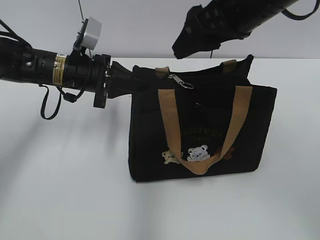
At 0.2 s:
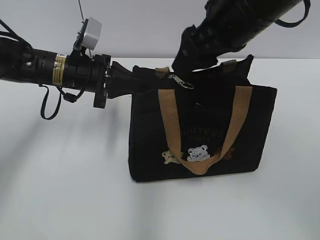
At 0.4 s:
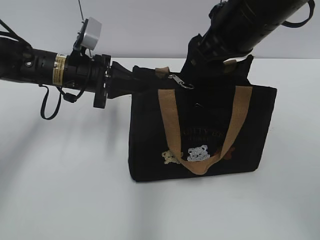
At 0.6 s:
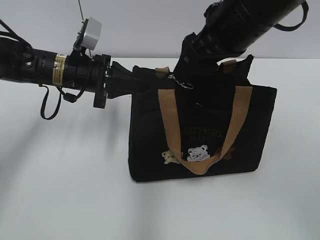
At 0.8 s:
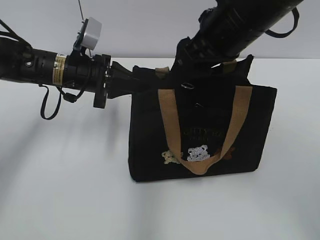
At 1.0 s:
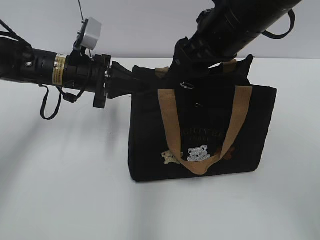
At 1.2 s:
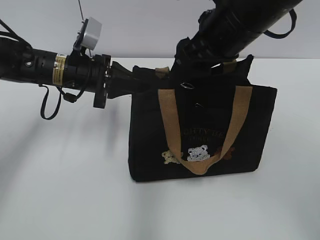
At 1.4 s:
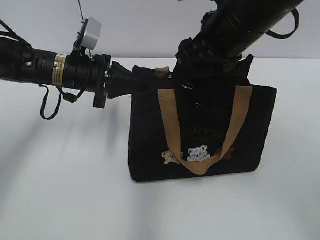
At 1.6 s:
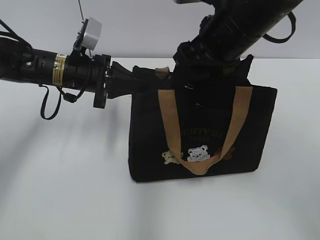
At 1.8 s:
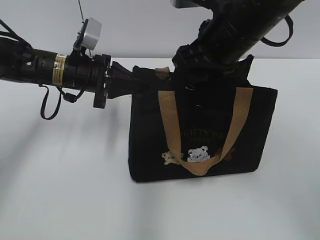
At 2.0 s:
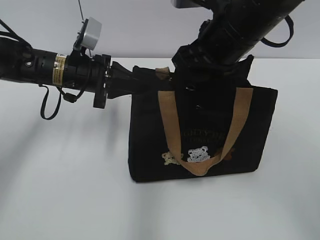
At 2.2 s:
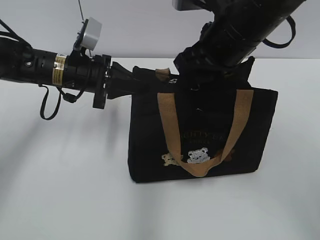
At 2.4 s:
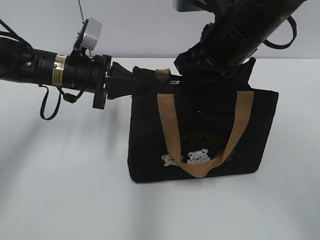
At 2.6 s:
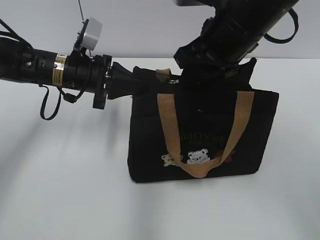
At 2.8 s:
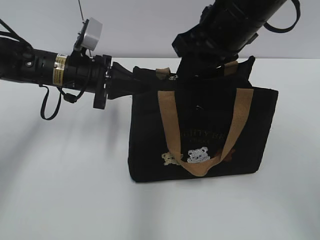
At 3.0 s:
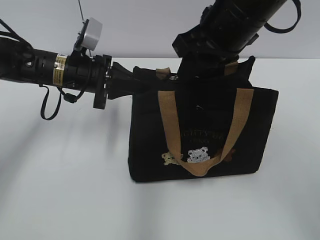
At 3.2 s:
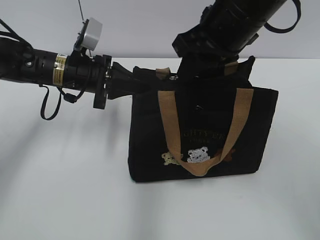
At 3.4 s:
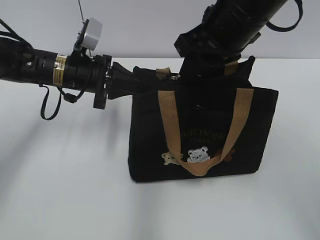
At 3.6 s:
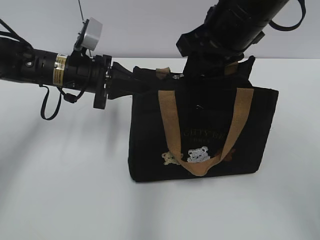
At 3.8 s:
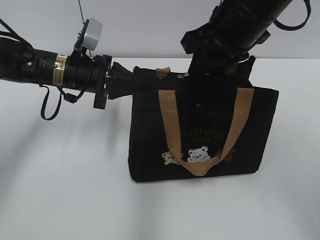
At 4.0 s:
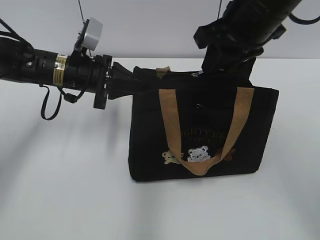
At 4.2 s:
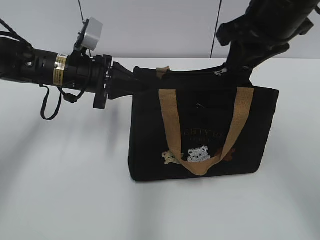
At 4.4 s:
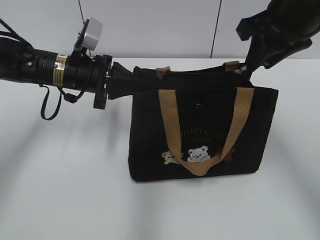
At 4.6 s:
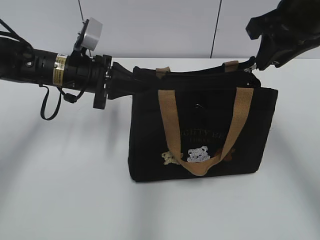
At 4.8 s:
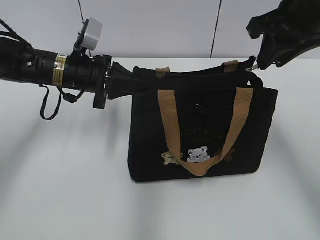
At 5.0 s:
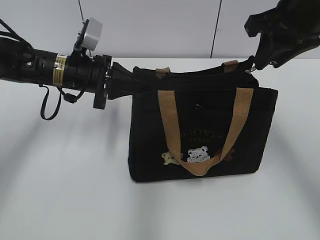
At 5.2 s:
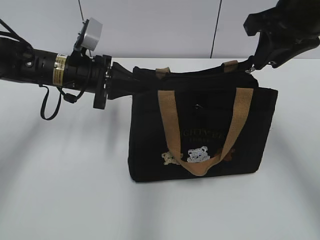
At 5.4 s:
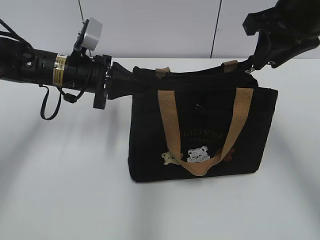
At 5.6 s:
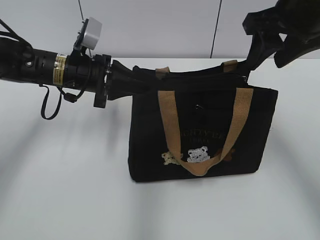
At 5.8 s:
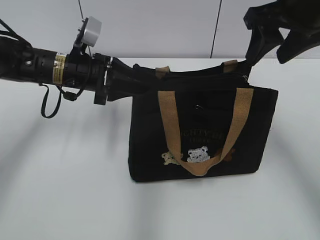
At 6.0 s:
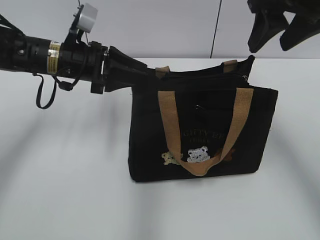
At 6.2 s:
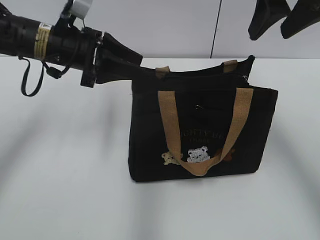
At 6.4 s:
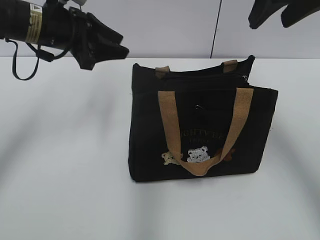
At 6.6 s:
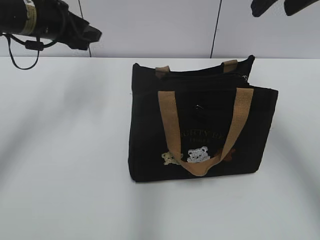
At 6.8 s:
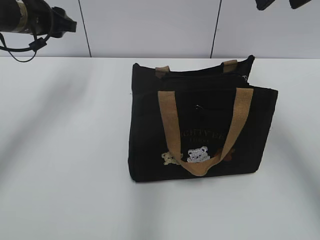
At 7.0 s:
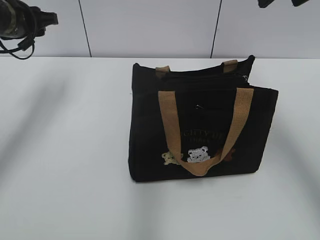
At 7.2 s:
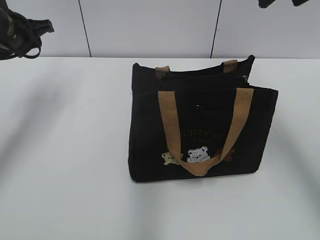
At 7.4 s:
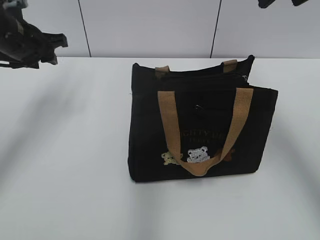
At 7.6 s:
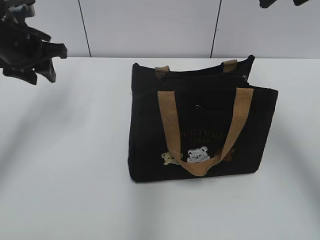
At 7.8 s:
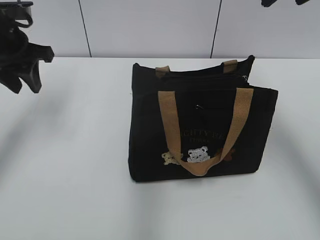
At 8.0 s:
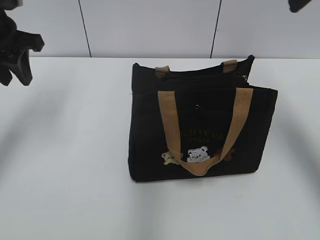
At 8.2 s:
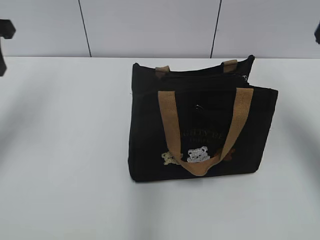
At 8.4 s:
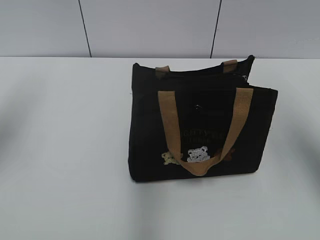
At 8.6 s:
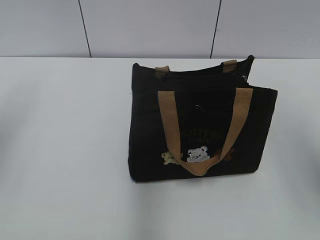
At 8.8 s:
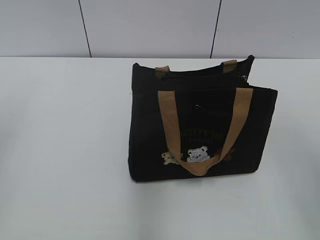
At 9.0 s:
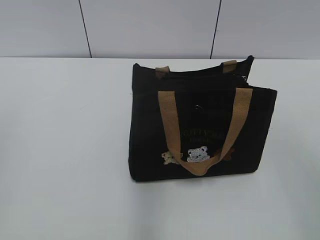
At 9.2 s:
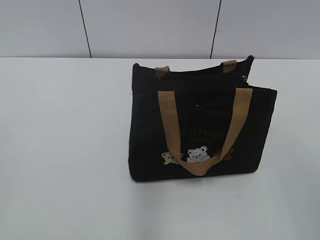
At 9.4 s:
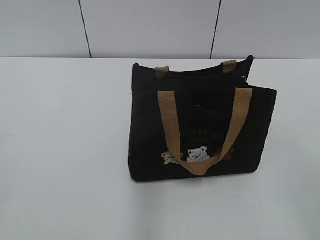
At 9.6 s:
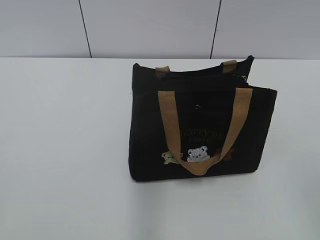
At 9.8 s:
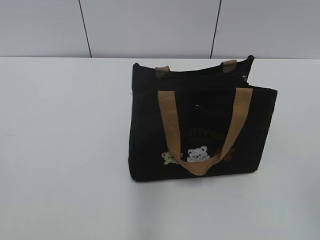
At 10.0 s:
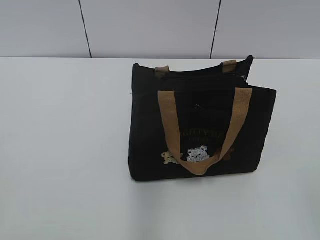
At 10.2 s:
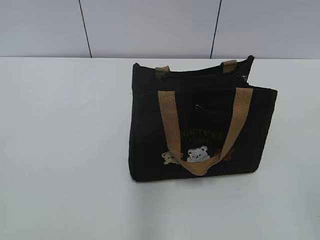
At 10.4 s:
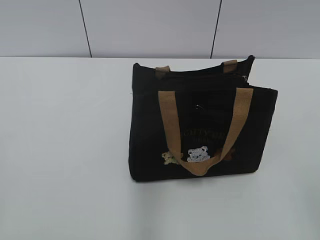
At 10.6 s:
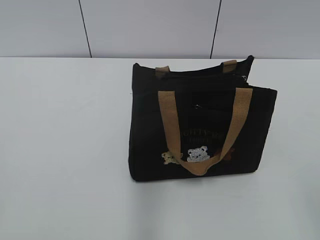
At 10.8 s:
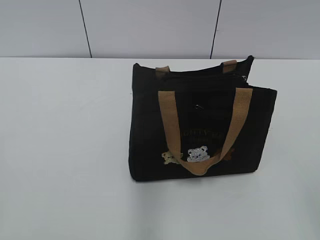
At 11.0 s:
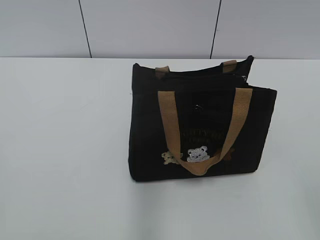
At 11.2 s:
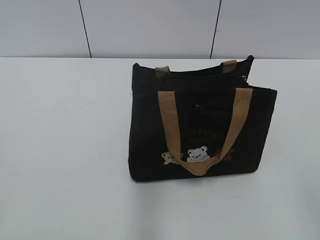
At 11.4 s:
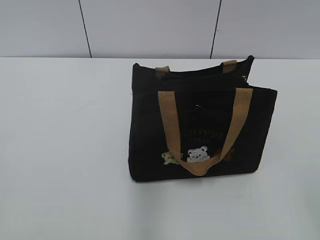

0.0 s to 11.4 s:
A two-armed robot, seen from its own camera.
Step, 0.0 to 5.4 s: Pull open the zipper with your right hand.
Step, 5.6 to 6.2 s: Hold the bag with your left hand.
0.0 to 1.4 s: The grippers stay close to where they were, moving slightly.
1.4 to 2.8 s: The right gripper closes.
2.8 to 4.2 s: The grippers move only a little.
4.2 to 5.6 s: The right gripper opens.
5.6 to 7.2 s: The right gripper goes about 10 cm upward, and opens up. Meanwhile the left gripper travels to the left and upward by about 15 cm, and opens.
7.2 to 8.6 s: The left gripper moves backward and upward, roughly 20 cm. The right gripper shifts approximately 15 cm backward and to the right.
8.6 to 10.0 s: The grippers both shift backward by about 25 cm. The right gripper closes.

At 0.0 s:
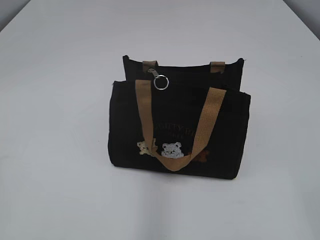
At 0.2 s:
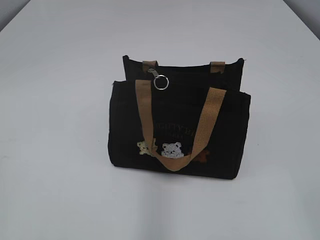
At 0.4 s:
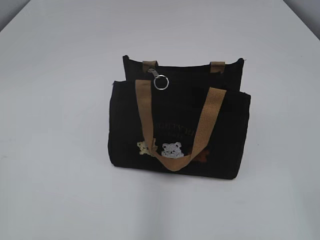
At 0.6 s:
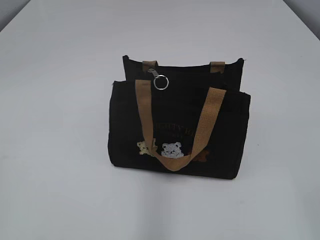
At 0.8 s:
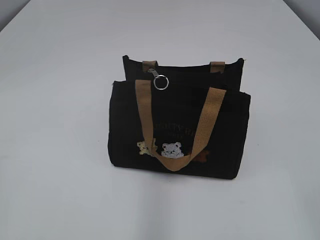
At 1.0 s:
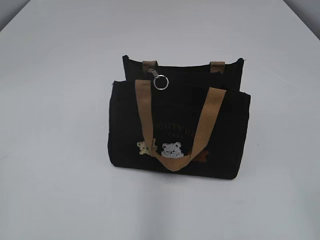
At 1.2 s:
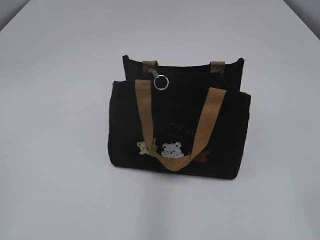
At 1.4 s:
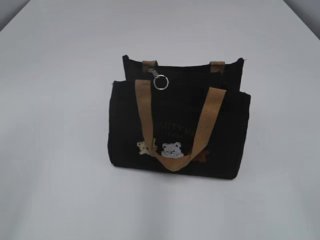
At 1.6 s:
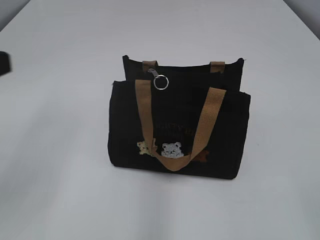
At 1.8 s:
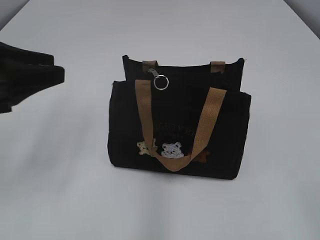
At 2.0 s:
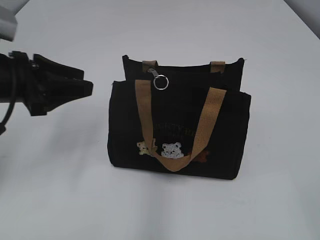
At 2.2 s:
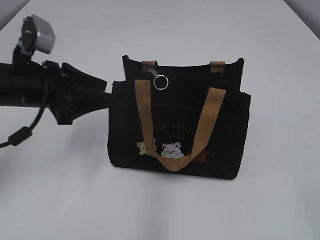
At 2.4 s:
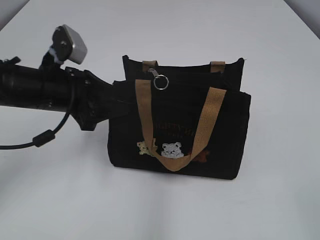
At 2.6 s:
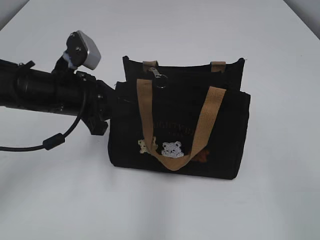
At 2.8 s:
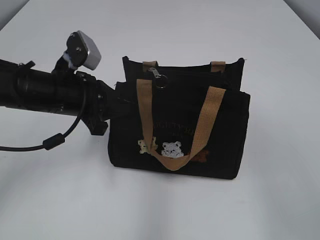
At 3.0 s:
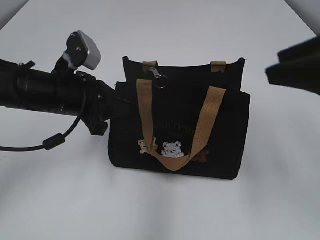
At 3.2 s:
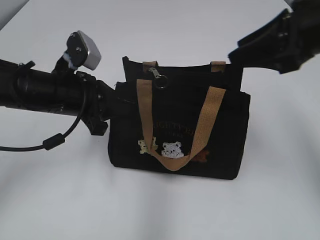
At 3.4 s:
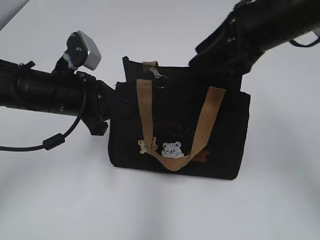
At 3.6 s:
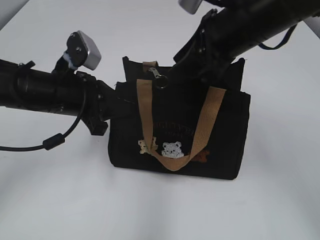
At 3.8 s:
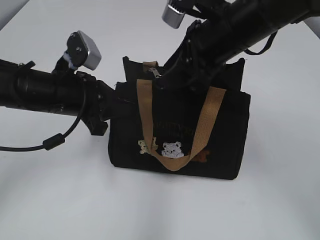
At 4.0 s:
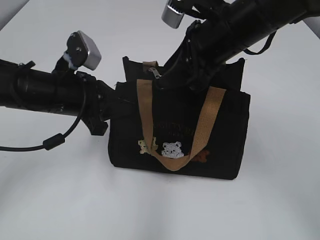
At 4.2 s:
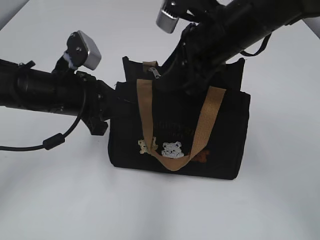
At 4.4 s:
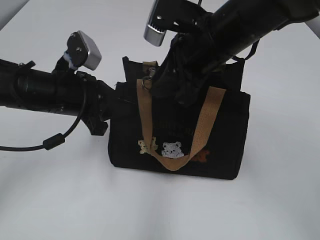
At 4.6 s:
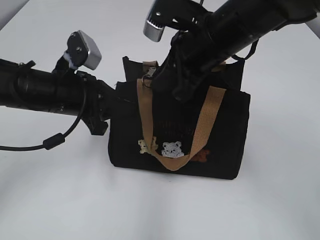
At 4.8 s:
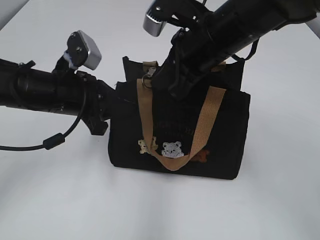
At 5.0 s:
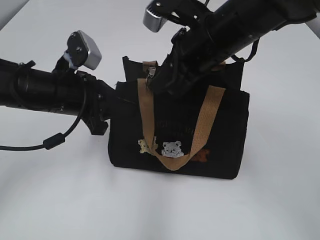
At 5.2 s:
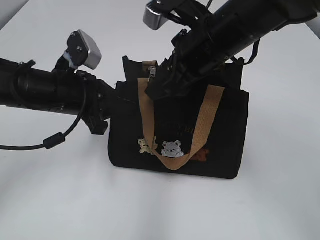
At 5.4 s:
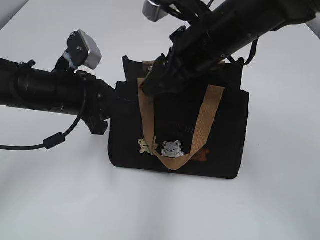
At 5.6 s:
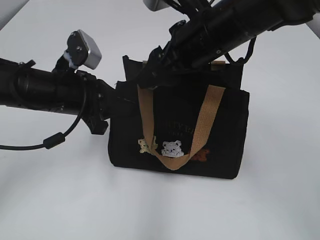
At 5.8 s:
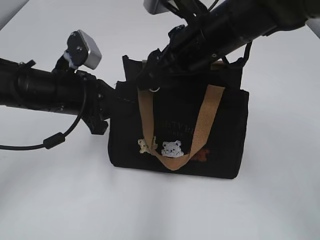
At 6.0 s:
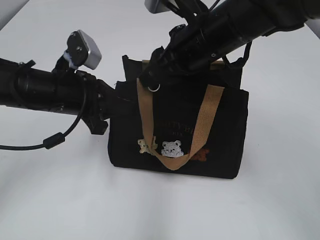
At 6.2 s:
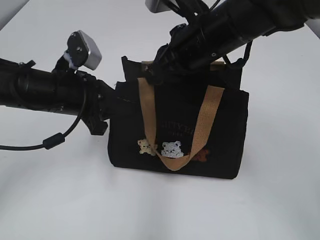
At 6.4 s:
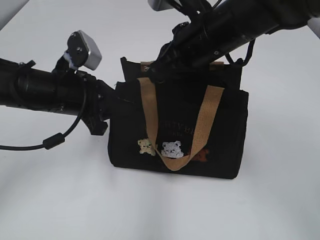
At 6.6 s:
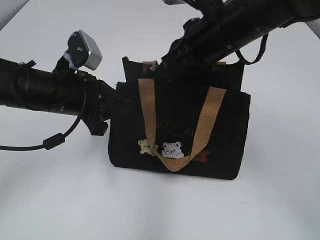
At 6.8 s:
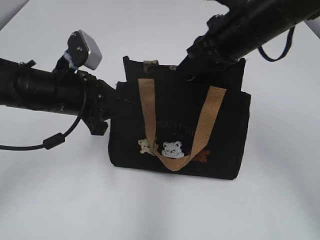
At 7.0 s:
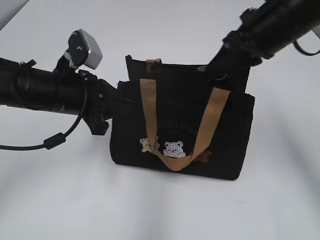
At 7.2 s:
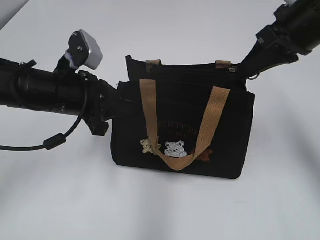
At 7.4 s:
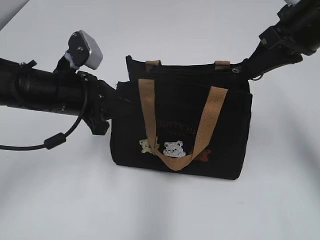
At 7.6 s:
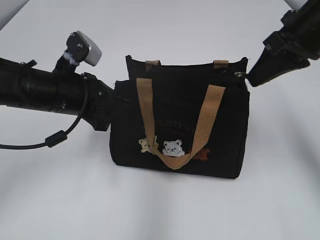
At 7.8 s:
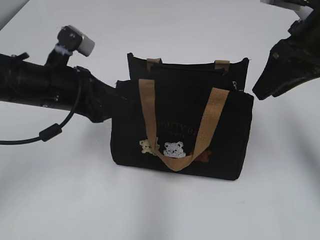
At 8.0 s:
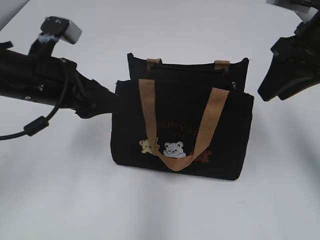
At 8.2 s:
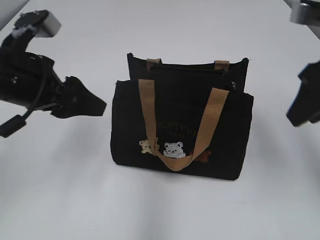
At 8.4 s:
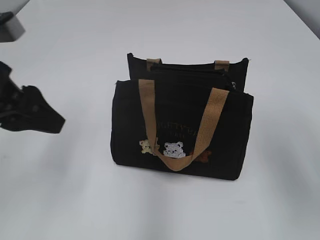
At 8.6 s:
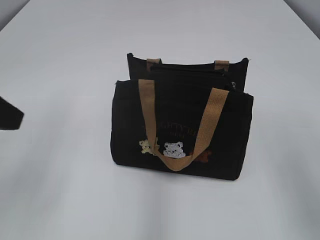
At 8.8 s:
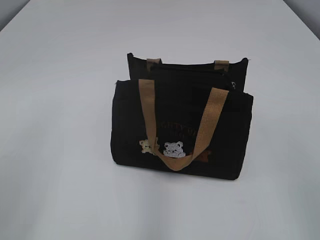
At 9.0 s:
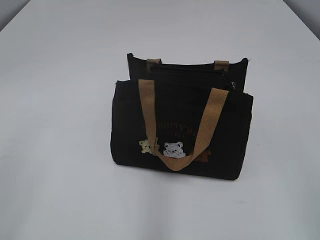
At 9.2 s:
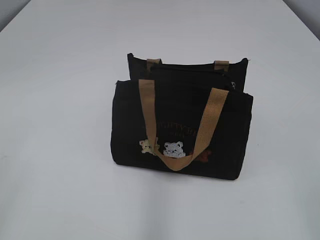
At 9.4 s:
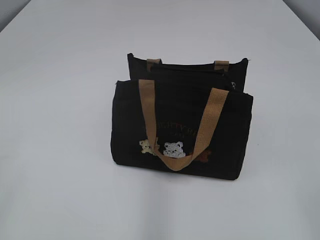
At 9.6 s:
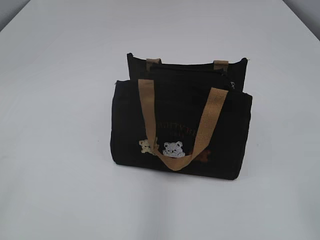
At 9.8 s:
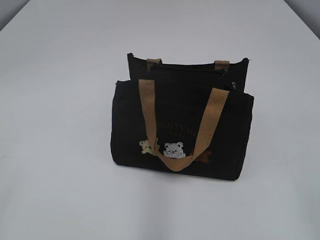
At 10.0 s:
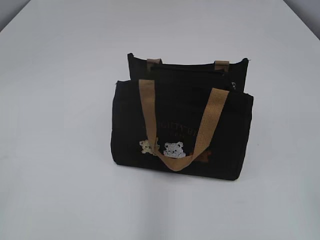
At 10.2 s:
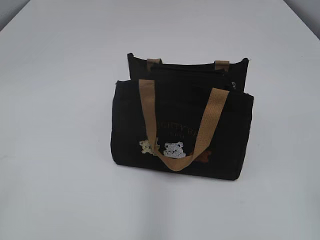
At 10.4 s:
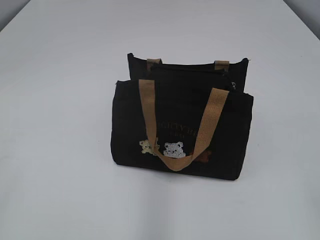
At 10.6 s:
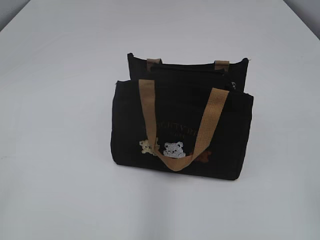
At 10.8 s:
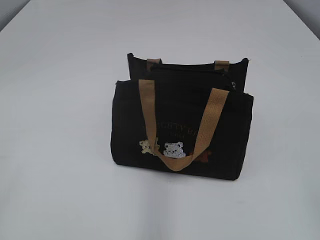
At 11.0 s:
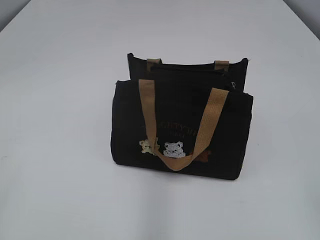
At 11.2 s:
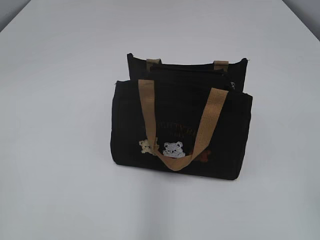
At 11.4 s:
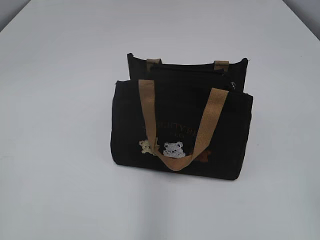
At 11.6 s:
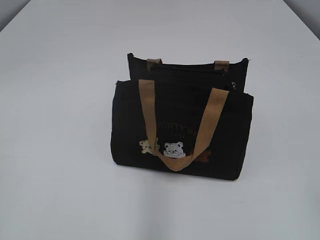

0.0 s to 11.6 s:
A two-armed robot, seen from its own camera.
Step, 0.0 to 7.4 s: Pull open the zipper with your right hand.
Step, 7.8 to 8.0 s: Hold the bag with your left hand.
1.4 to 2.8 s: The left gripper shifts about 30 cm forward, downward and to the right, and closes up, while the right gripper moves forward, approximately 10 cm.
2.8 to 4.4 s: The right gripper is displaced forward and to the left by roughly 25 cm.
4.4 to 5.8 s: The right gripper opens its fingers.
5.8 to 7.2 s: The right gripper moves to the right, approximately 15 cm, and closes up.
7.2 to 8.8 s: The left gripper shifts about 25 cm backward, upward and to the left, and opens up. The right gripper heads backward, covering about 25 cm, and opens.
8.8 to 10.2 s: The left gripper travels backward and to the left by roughly 10 cm.
